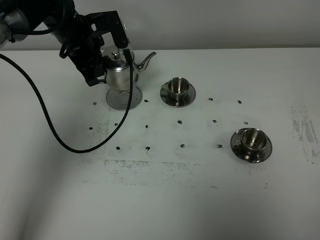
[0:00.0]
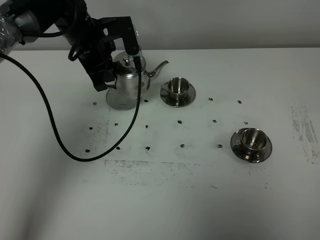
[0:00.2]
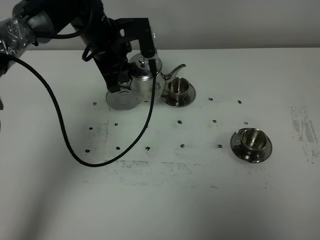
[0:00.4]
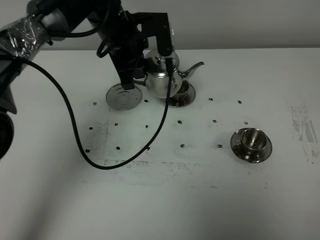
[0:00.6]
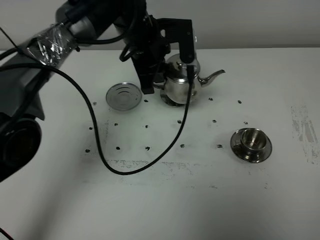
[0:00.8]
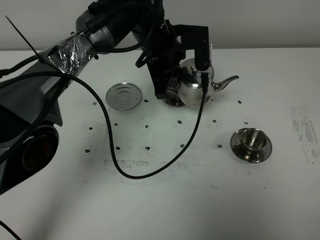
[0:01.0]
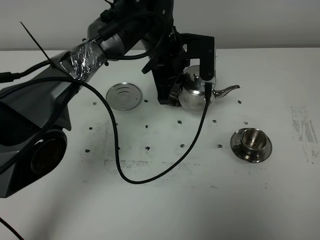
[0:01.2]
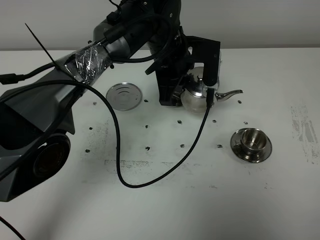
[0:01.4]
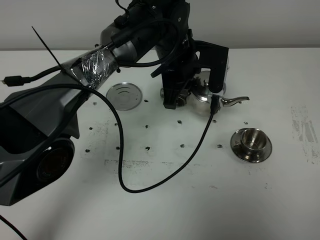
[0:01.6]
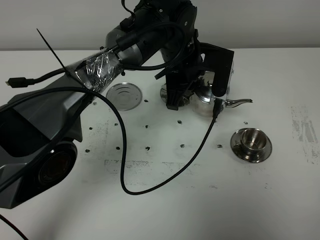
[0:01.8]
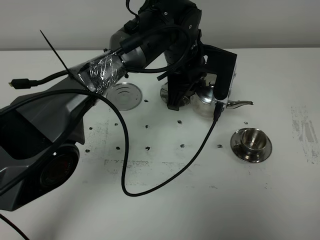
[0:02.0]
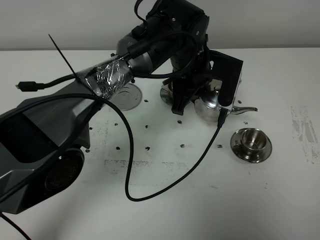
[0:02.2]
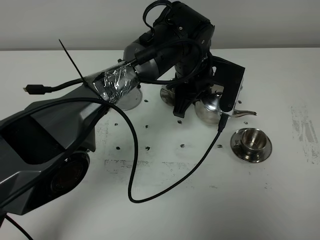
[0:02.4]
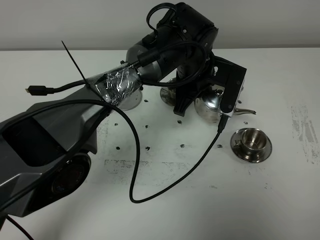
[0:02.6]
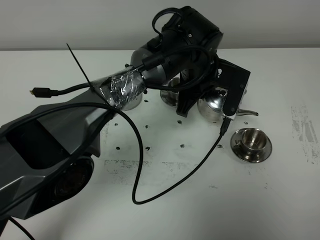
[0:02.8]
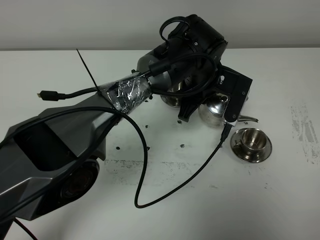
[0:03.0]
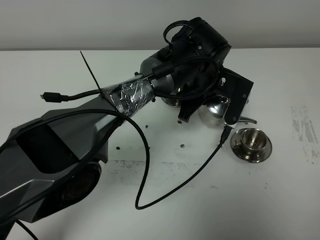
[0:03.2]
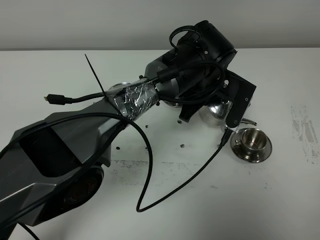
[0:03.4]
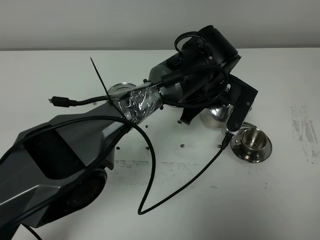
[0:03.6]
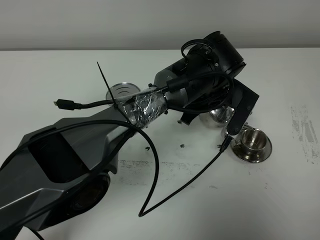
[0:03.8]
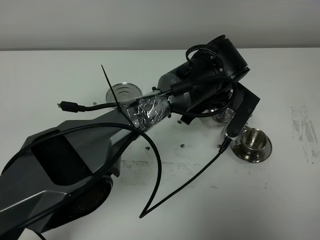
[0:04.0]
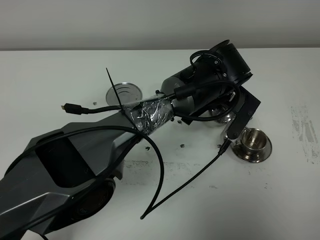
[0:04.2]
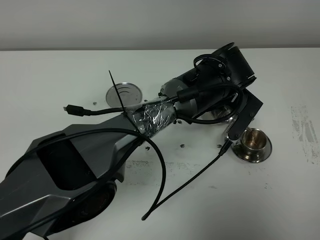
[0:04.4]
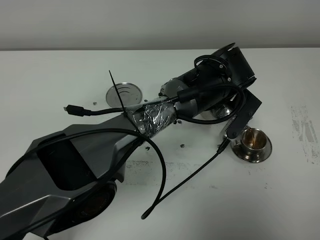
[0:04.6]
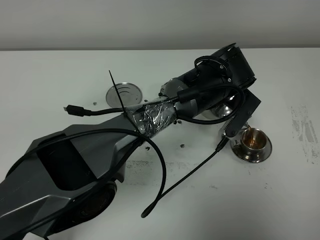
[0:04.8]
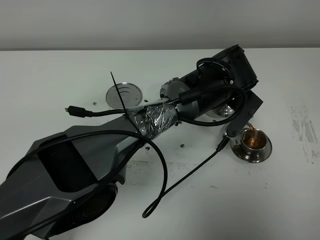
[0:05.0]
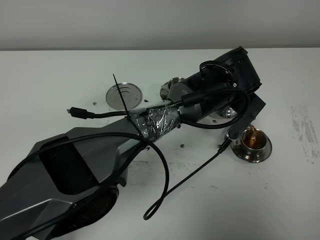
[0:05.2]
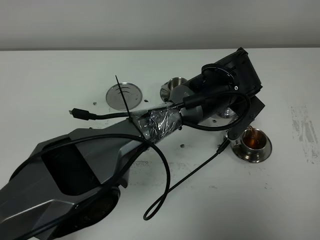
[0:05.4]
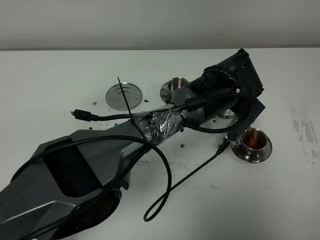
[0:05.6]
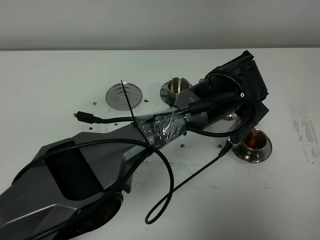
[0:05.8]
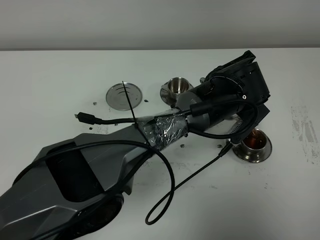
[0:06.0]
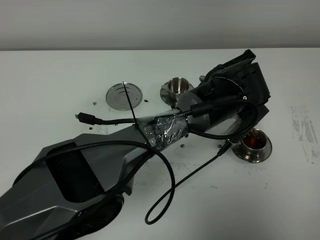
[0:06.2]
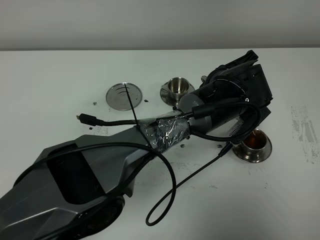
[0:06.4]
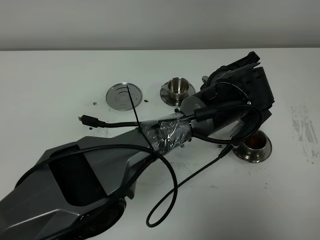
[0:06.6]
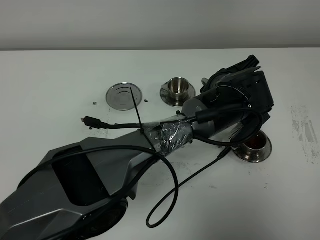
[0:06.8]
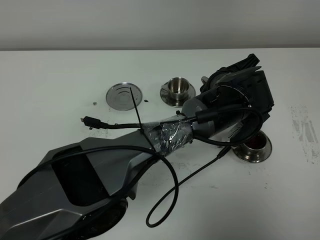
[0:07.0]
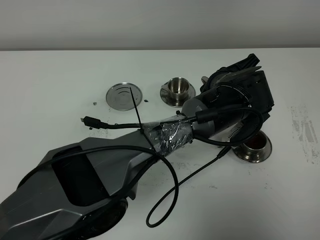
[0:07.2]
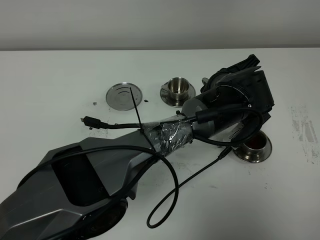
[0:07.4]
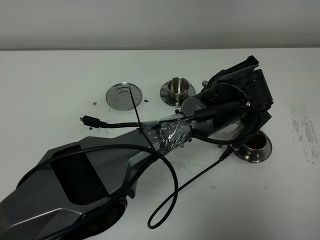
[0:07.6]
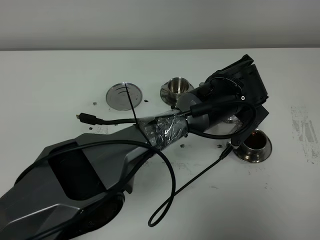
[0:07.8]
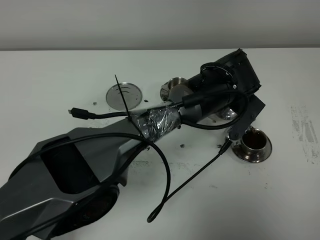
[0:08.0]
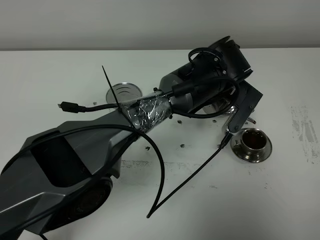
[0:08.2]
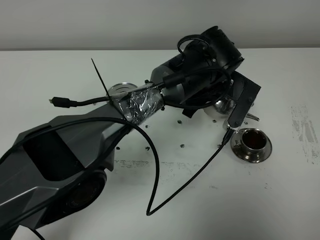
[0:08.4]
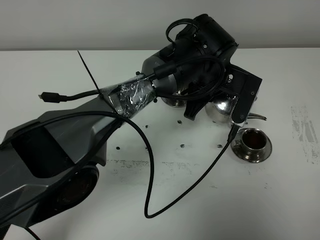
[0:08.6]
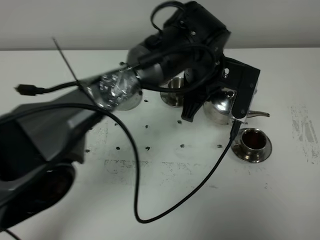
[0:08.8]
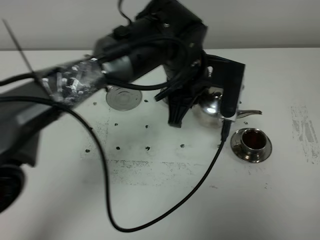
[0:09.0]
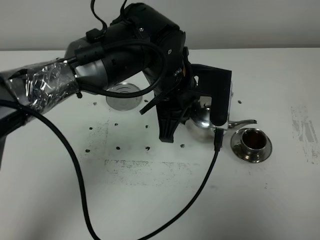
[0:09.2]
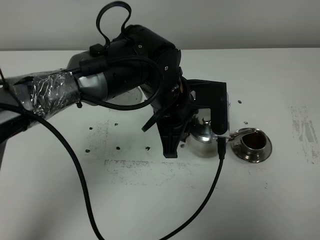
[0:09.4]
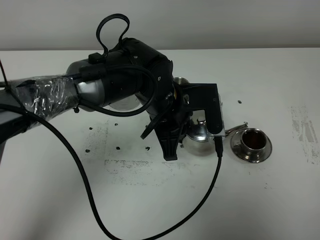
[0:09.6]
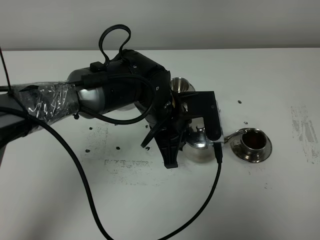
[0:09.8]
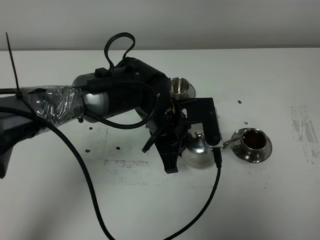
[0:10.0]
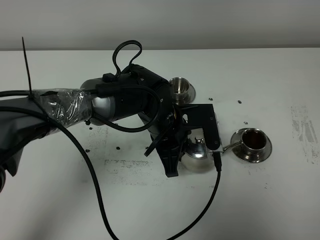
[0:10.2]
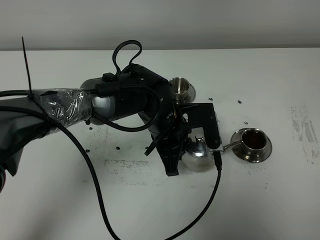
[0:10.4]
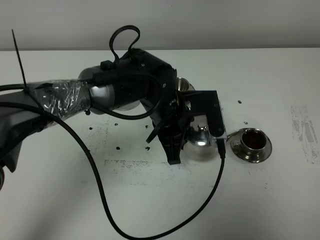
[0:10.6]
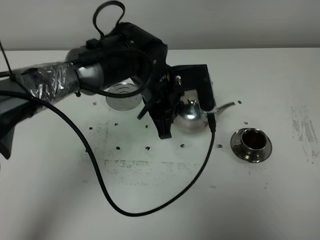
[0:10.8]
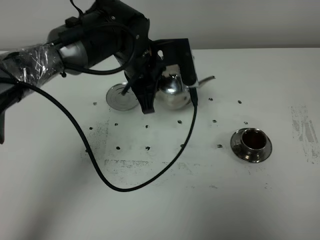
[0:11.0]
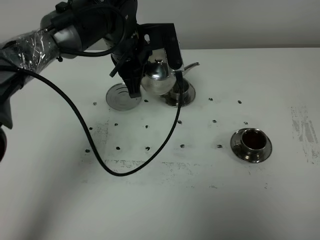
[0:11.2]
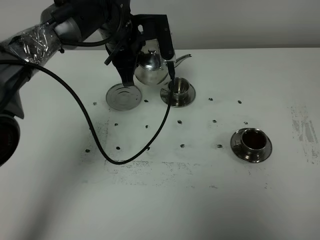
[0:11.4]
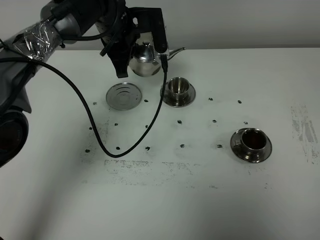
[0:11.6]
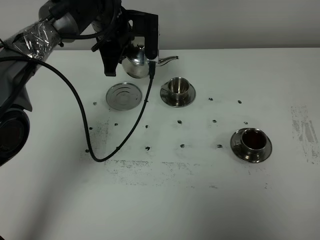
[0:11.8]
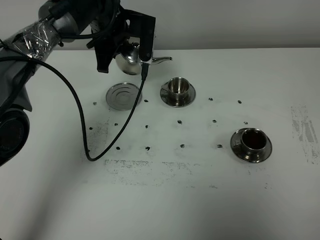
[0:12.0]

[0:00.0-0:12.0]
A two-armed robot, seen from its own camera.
Task of the whole recording: grasp the stainless steel teapot and pour the tea into the two stainless steel teacups one by one, put the stainless steel teapot back in its original place.
Step, 0:00.0 to 0:09.2: Pour tea into the teacup with the left gripper.
0:00.0 to 0:01.6: The left gripper travels to the right by roughly 20 cm.
0:01.6 to 0:03.0: The left gripper shifts by about 5 cm.
0:04.4 to 0:06.0: The grippers make only small movements.
0:06.0 to 0:07.6: Both grippers stay put.
0:07.6 to 0:09.0: The left gripper goes about 10 cm to the left and upward.
0:09.0 to 0:10.4: The left gripper shifts some 10 cm downward.
0:10.4 to 0:12.0: The left gripper is displaced forward, to the left and upward by approximately 20 cm.

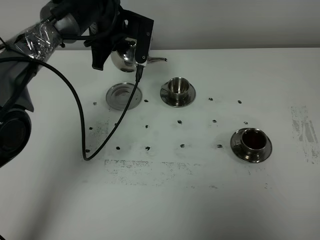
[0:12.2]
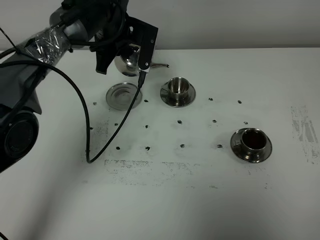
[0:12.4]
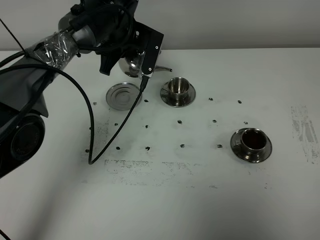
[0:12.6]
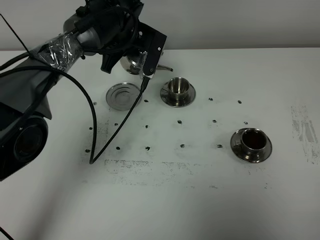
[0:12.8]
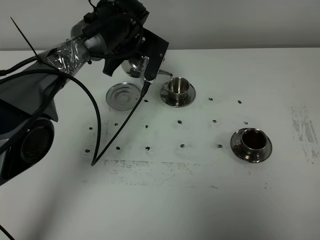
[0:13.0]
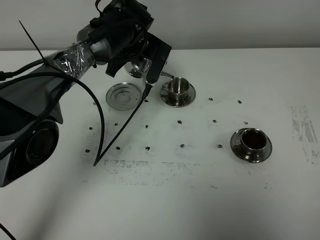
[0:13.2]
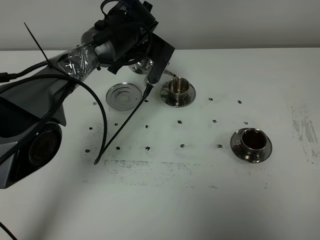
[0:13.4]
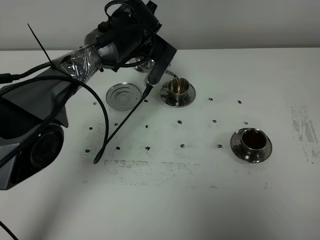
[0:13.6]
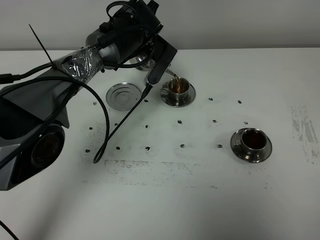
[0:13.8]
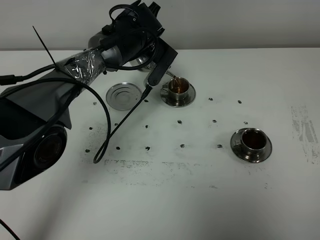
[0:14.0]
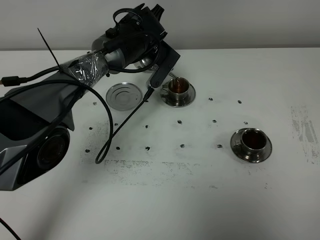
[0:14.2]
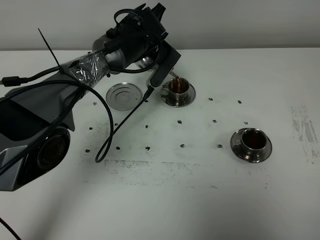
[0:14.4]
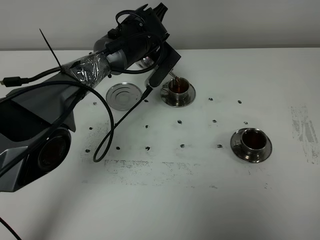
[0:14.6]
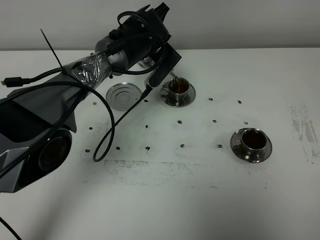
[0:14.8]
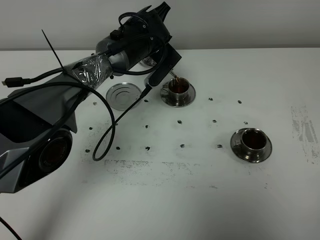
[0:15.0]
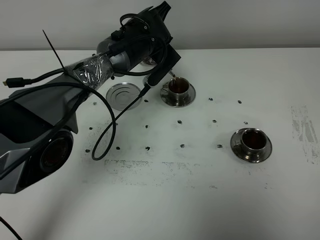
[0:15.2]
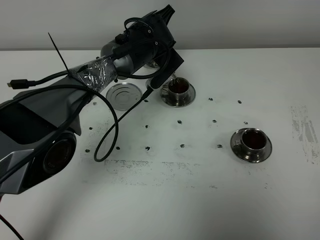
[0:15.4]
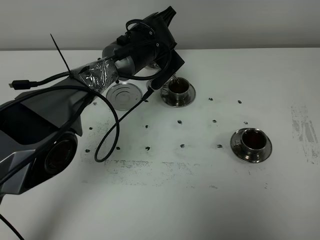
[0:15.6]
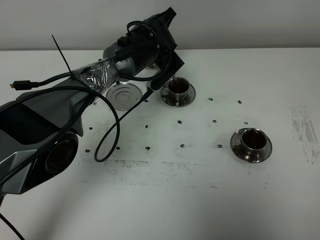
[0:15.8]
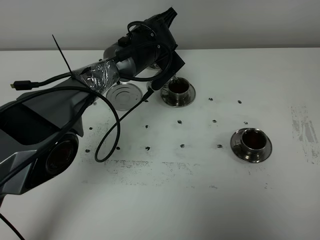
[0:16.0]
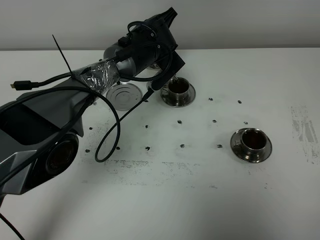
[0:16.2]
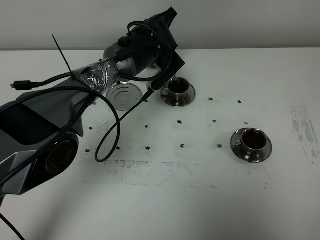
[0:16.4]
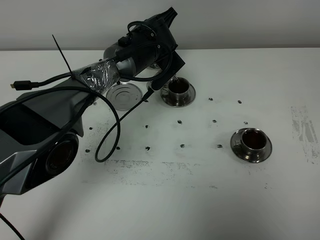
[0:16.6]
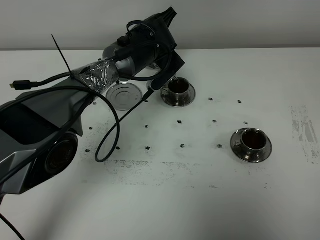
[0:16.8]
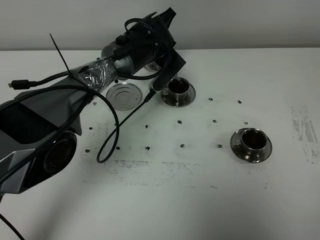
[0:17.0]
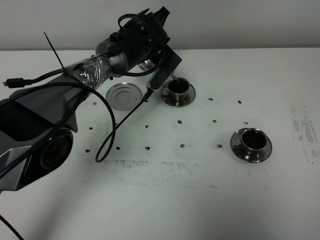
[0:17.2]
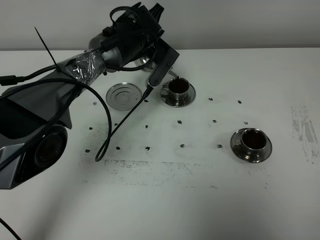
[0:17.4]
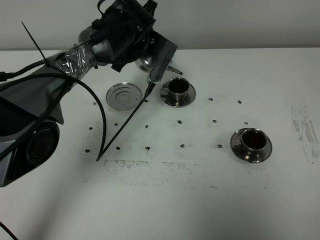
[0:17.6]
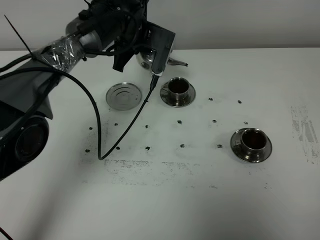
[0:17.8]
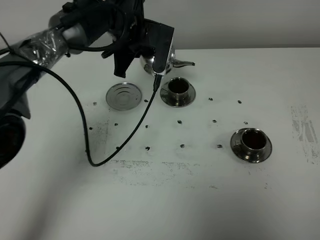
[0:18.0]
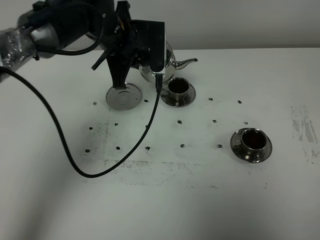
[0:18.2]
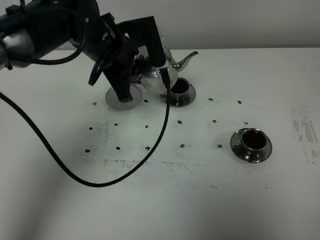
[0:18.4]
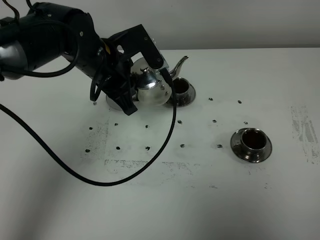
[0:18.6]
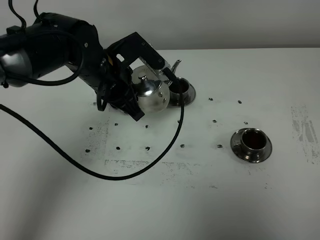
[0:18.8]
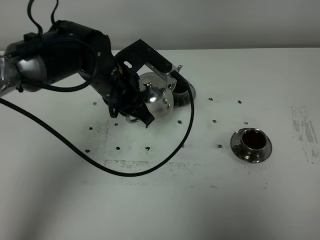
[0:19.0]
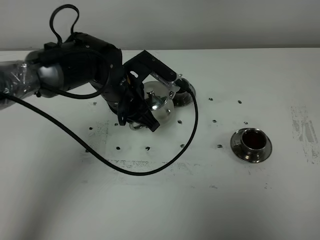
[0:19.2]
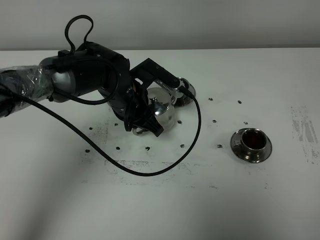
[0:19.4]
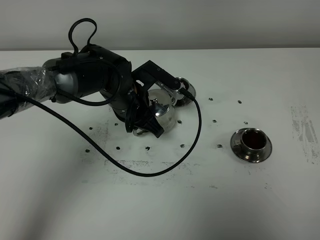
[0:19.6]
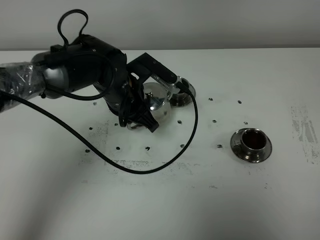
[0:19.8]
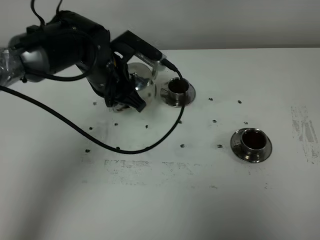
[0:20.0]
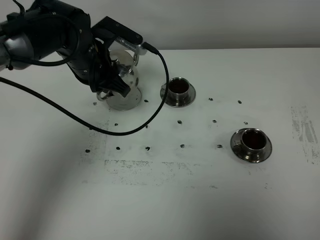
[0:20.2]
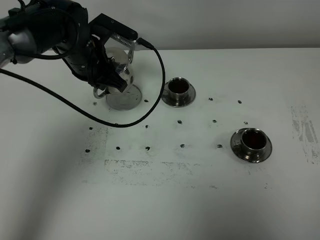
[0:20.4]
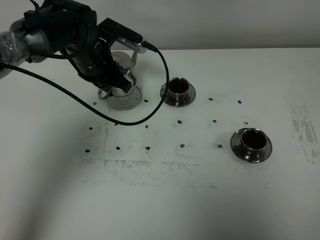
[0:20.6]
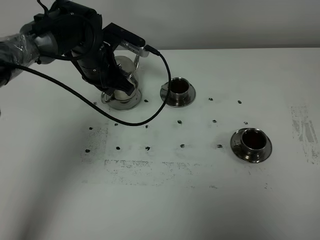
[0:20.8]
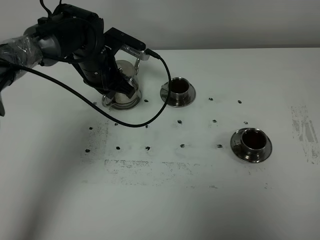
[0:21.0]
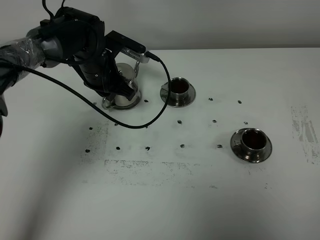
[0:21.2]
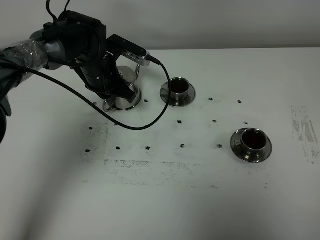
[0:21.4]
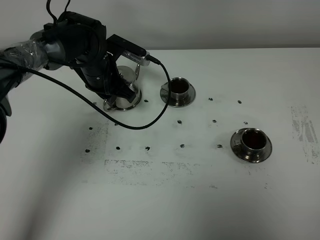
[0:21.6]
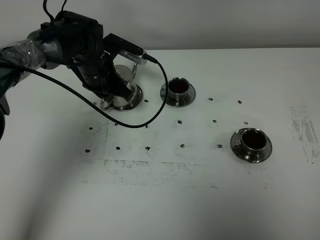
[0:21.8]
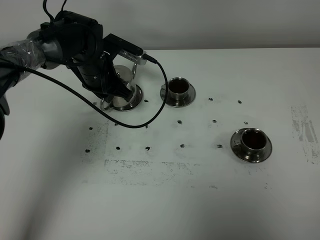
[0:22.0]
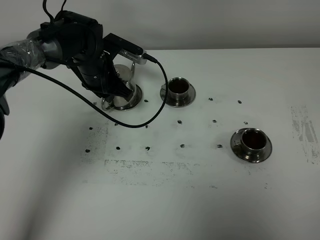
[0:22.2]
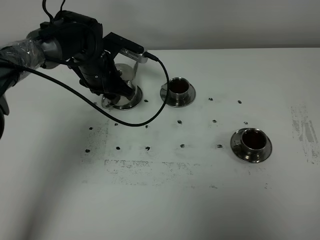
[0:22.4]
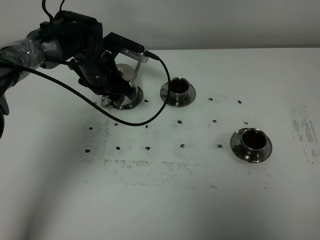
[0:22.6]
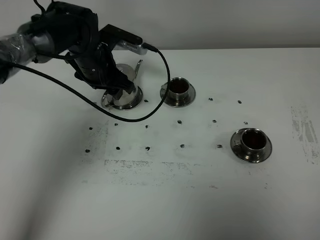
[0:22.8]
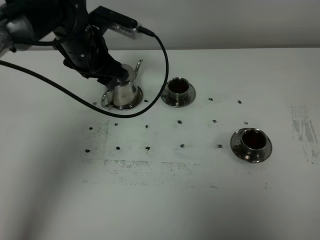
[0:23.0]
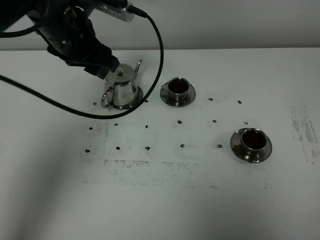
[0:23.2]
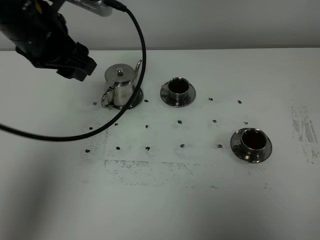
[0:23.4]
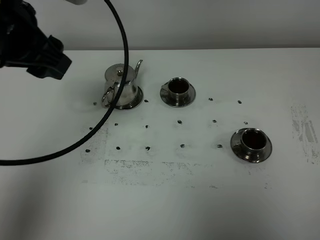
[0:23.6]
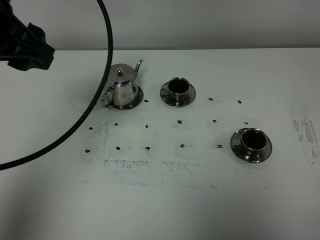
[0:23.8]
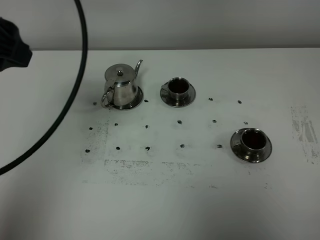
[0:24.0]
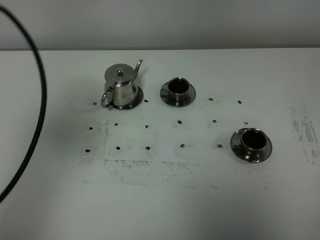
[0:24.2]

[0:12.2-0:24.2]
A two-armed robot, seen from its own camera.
Task of the whole recording: grasp the stainless steel teapot and pour the tea into the two stainless steel teacups one by one, put the stainless steel teapot back in its original place.
Step, 0:12.2 to 0:17.8: Pour tea into the teacup with the left gripper.
0:12.2 to 0:13.8: The left gripper shifts some 5 cm to the right.
0:13.8 to 0:16.6: There are only small adjustments of the grippers.
0:16.6 to 0:18.2: The left gripper travels to the left, upward and backward by approximately 10 cm.
0:18.2 to 0:19.8: The left gripper heads downward and backward, covering roughly 10 cm.
0:19.8 to 0:21.2: The left gripper is displaced forward and to the left by approximately 10 cm.
0:21.2 to 0:22.6: The left gripper opens its fingers.
0:22.6 to 0:24.2: The left gripper heads backward, upward and to the left, covering approximately 35 cm.
